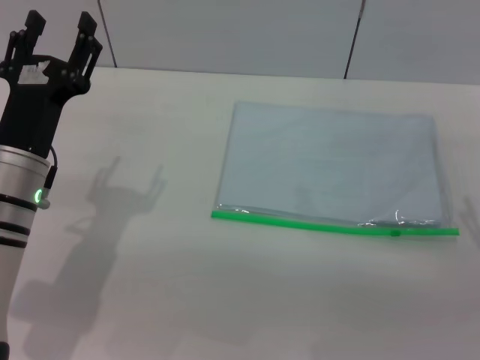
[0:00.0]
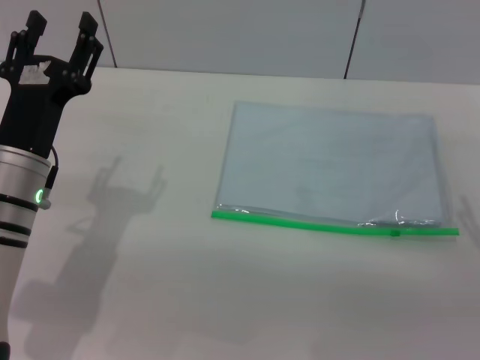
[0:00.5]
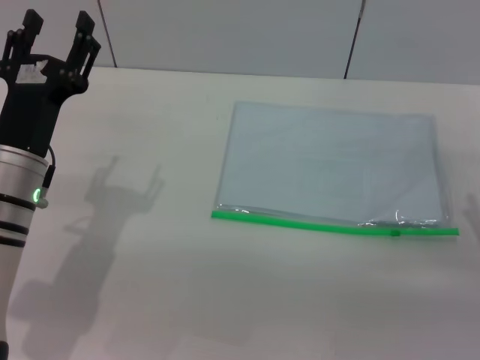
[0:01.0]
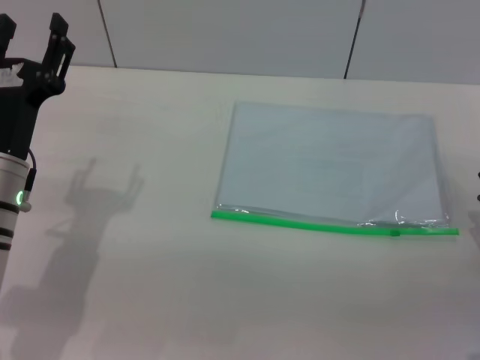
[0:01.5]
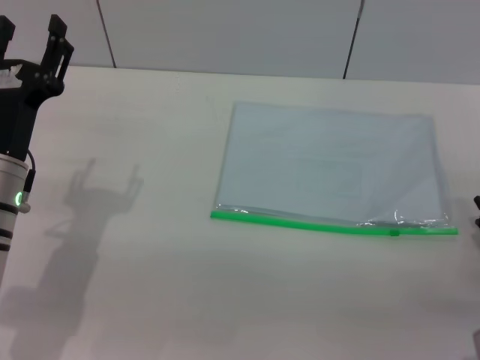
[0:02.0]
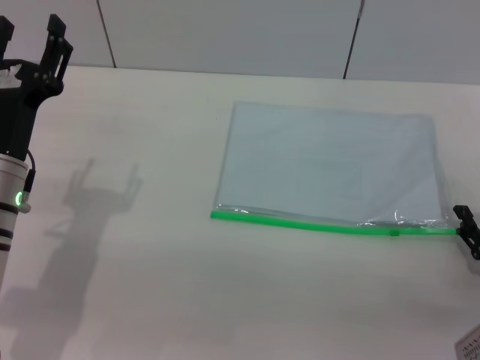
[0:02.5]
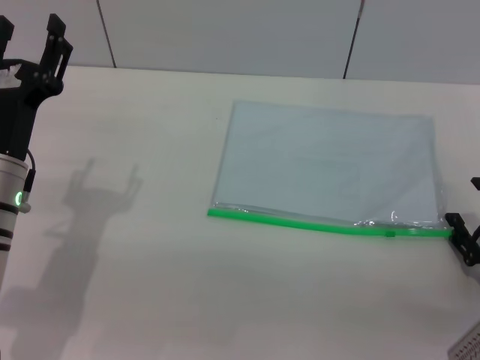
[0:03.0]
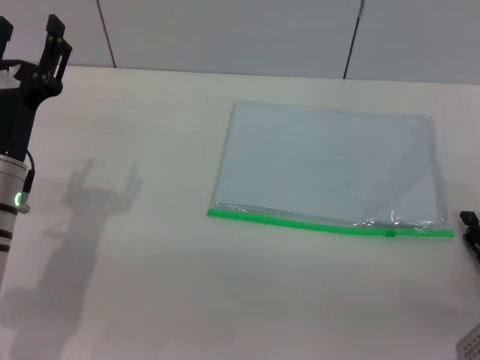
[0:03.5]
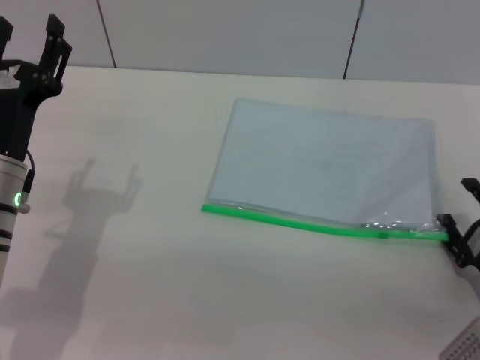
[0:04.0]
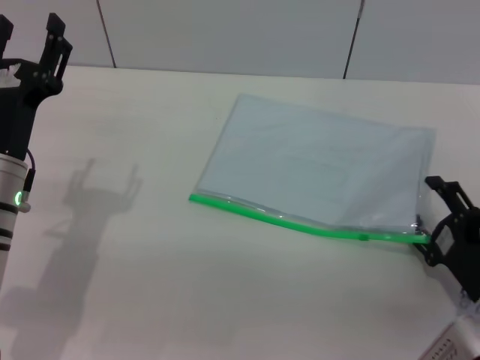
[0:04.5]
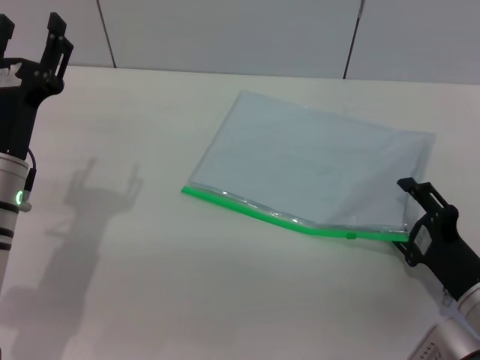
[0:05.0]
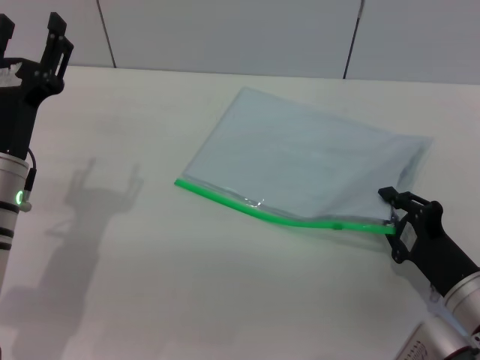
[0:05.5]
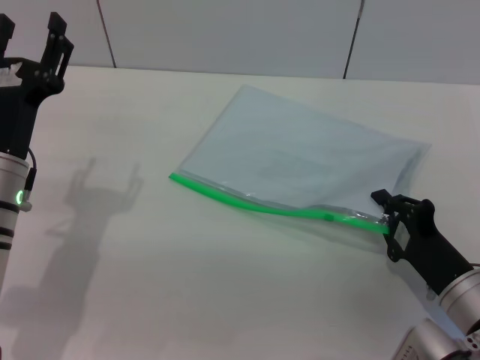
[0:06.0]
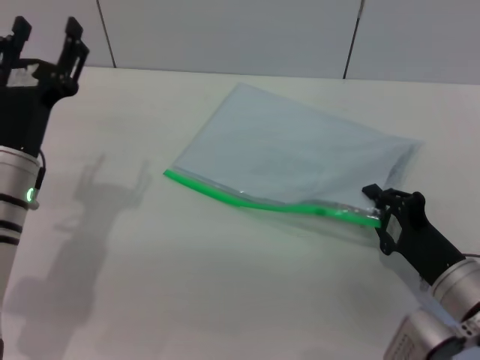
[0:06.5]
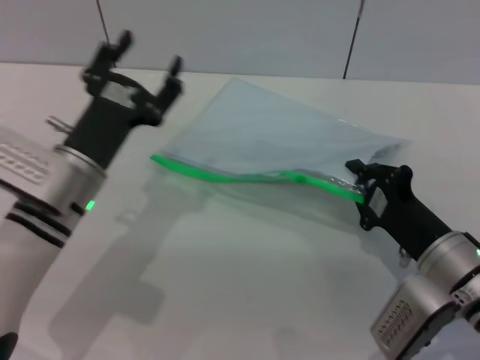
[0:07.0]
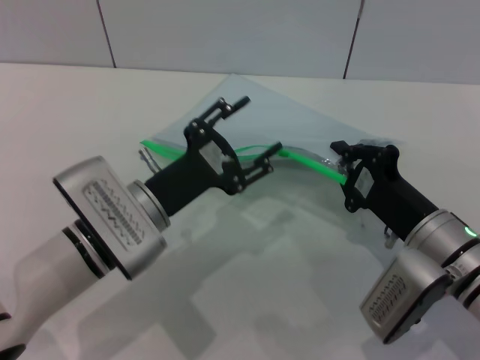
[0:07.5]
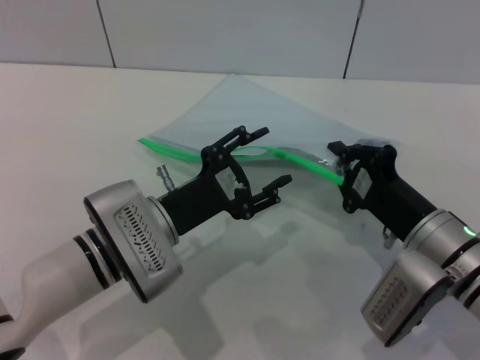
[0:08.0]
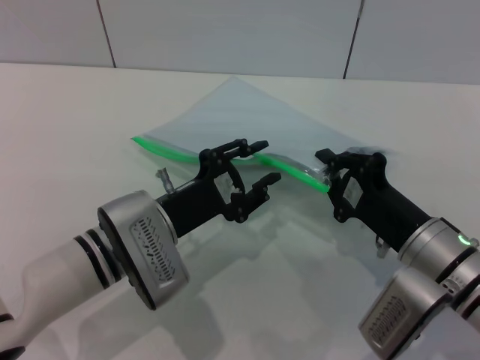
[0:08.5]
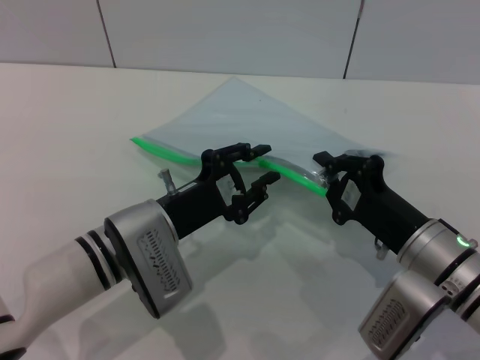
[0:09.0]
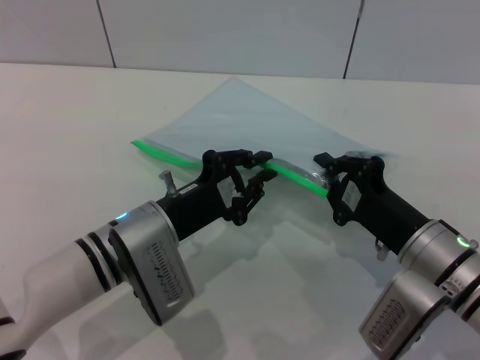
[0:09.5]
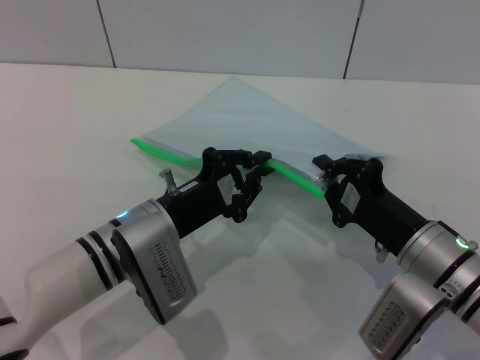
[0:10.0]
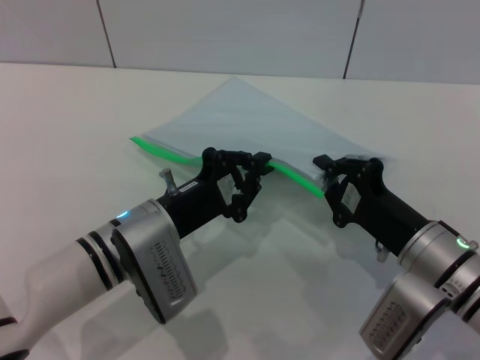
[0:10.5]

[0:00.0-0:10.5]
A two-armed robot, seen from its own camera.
Step, 0:00.0 to 0:06.5: Pick up the transparent plastic bag with the right gripper.
0:02.0 to 0:04.0: There are only small adjustments of the grippers.
0:04.0 to 0:06.5: The right gripper goes roughly 5 cm to the left, and closes.
0:06.5 to 0:08.5: The right gripper shifts by about 5 cm; the left gripper moves to the right, roughly 10 cm.
0:08.5 to 0:10.5: The left gripper closes.

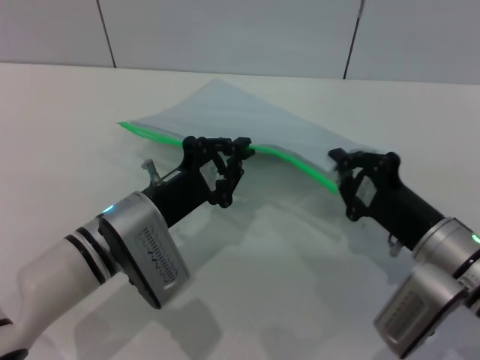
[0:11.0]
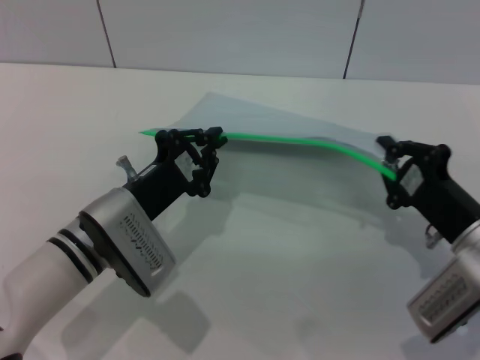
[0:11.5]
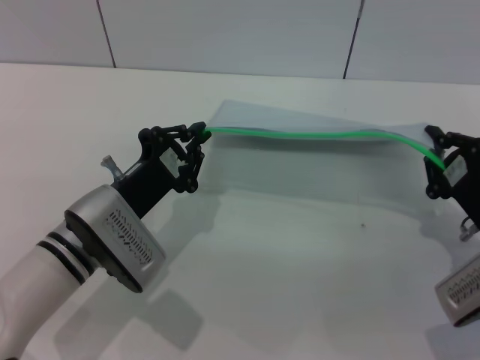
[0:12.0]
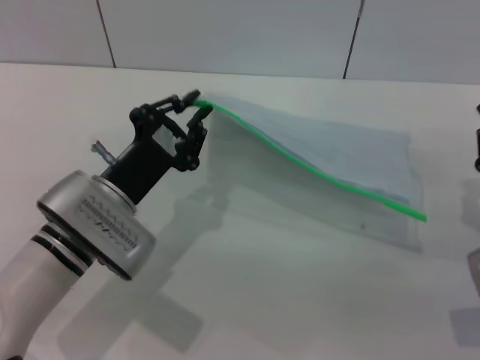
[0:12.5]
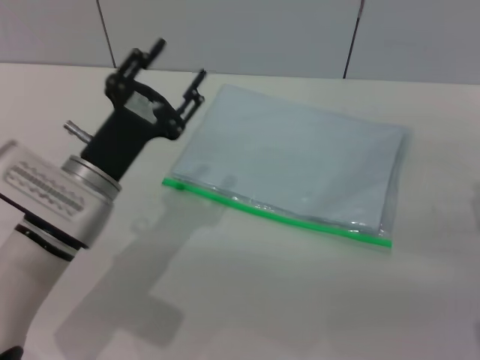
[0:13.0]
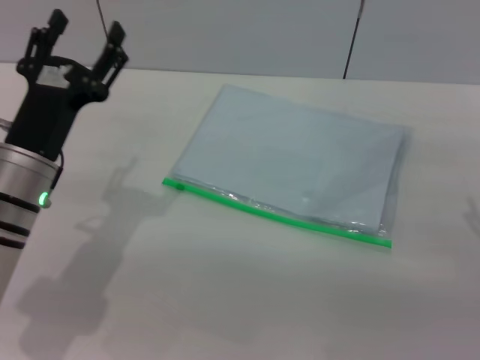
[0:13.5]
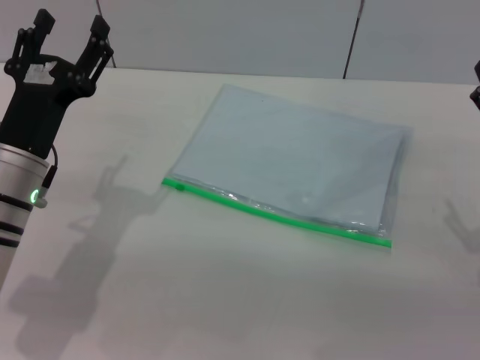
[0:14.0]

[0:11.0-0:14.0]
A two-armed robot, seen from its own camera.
0:11.0 to 0:12.5: The right gripper shifts approximately 10 cm to the right.
0:12.5 to 0:14.0: The left gripper goes roughly 5 cm to the left, and opens up. The right gripper opens up.
